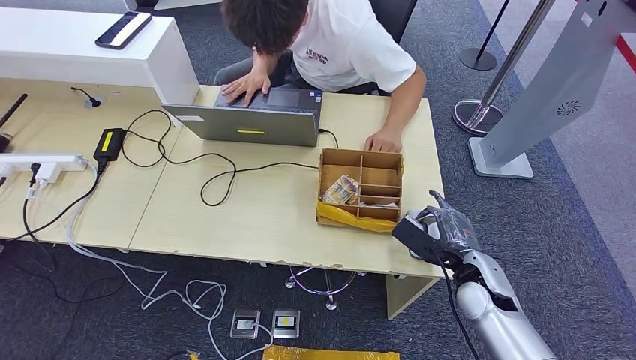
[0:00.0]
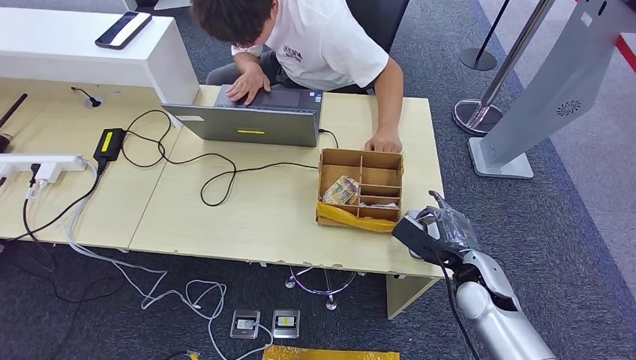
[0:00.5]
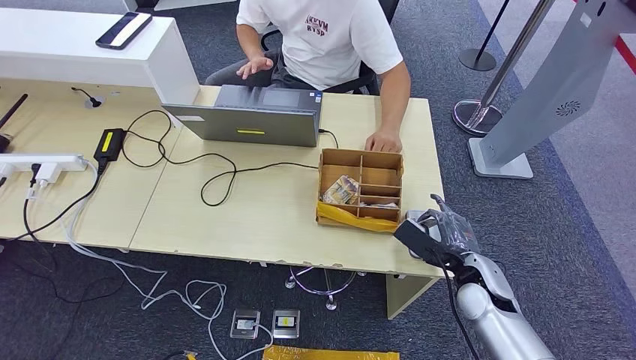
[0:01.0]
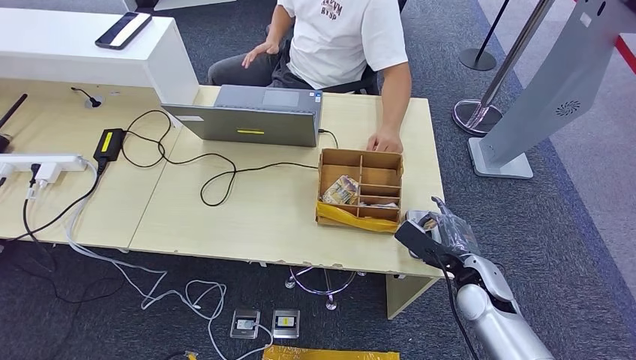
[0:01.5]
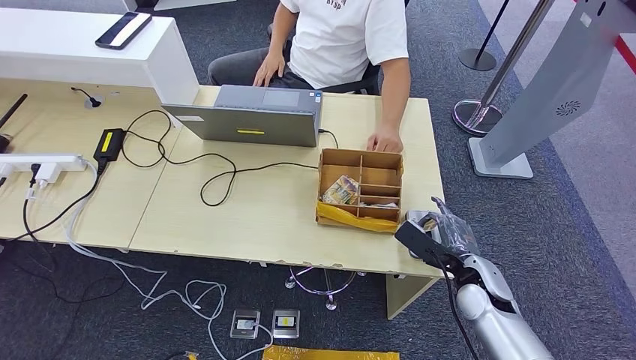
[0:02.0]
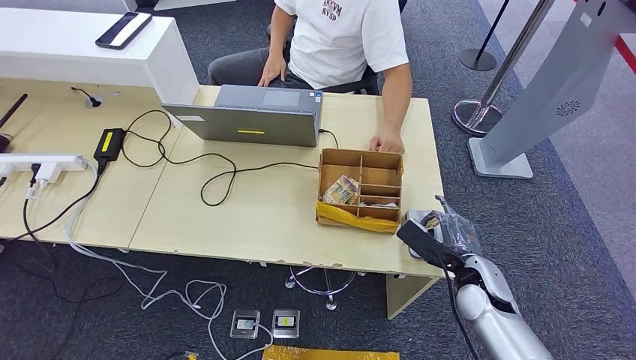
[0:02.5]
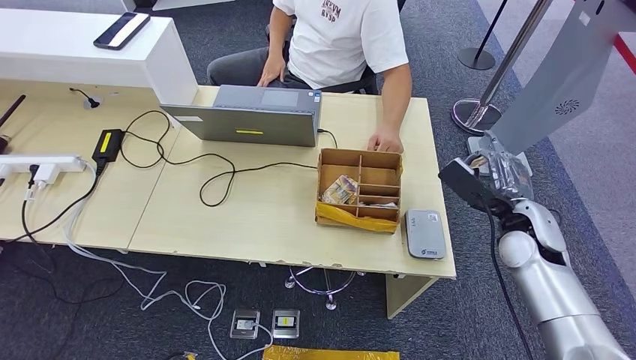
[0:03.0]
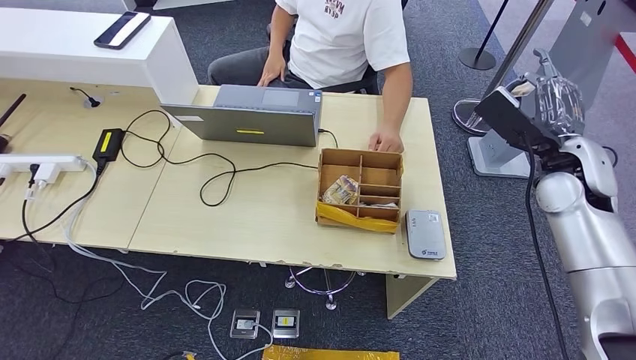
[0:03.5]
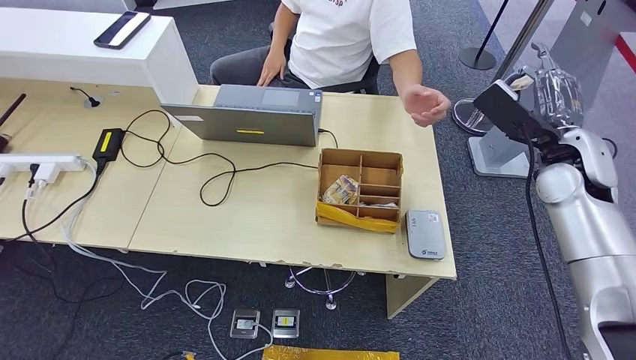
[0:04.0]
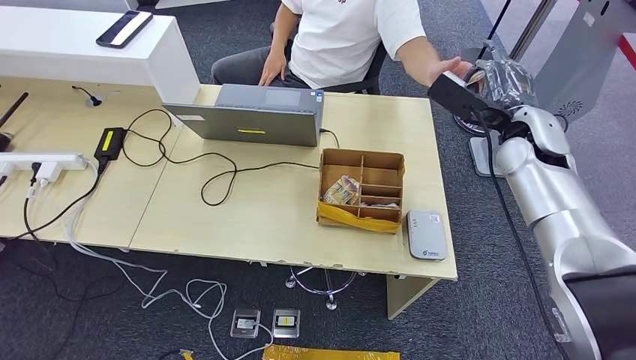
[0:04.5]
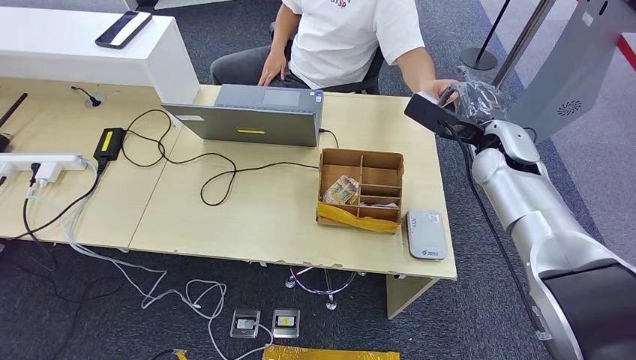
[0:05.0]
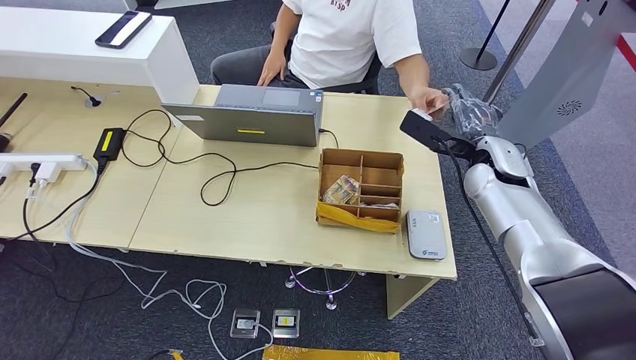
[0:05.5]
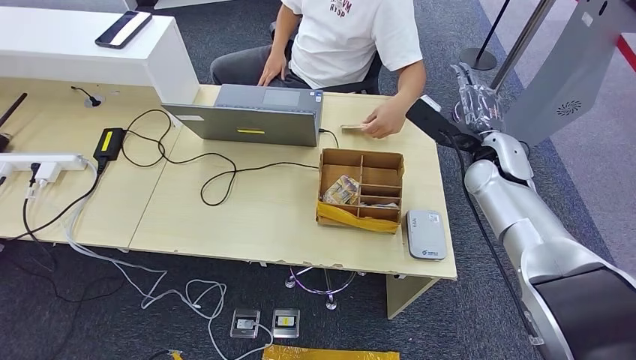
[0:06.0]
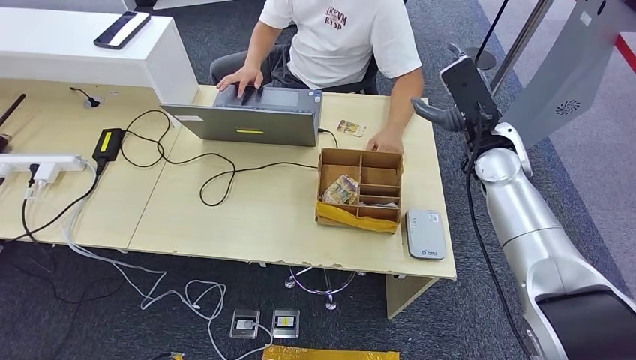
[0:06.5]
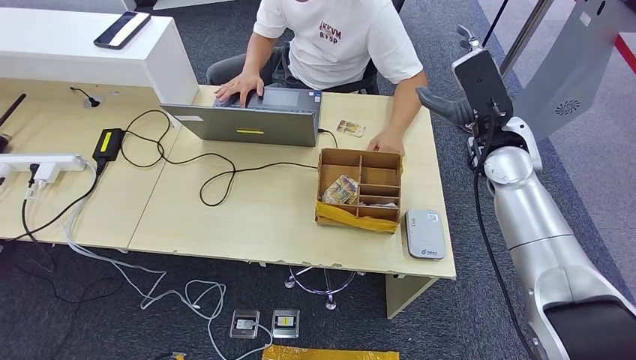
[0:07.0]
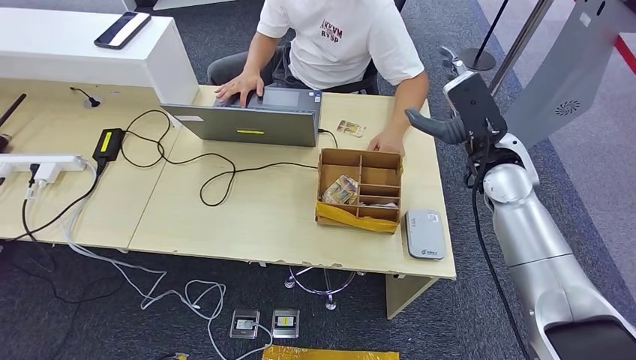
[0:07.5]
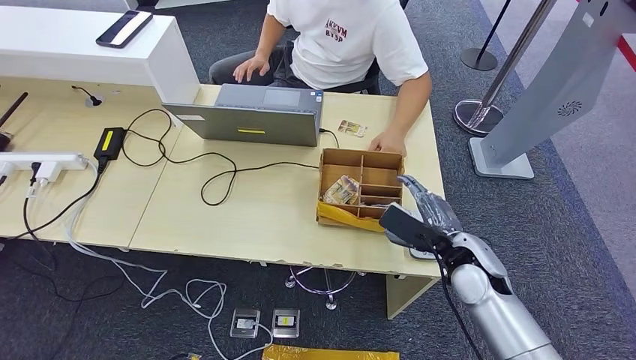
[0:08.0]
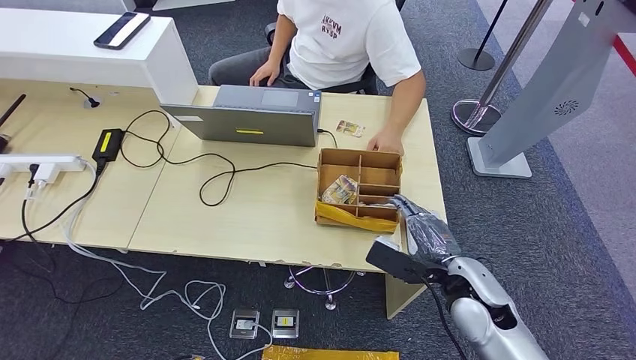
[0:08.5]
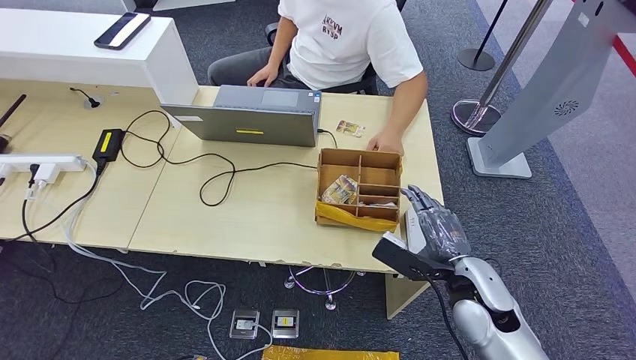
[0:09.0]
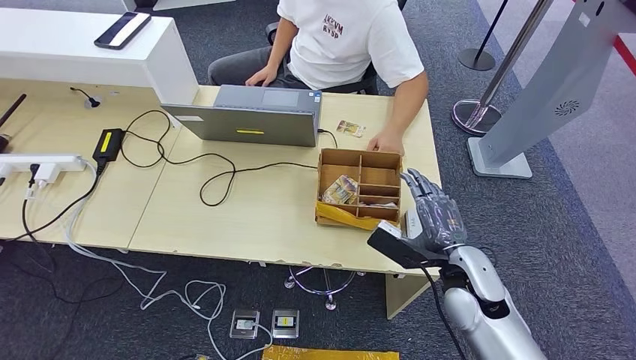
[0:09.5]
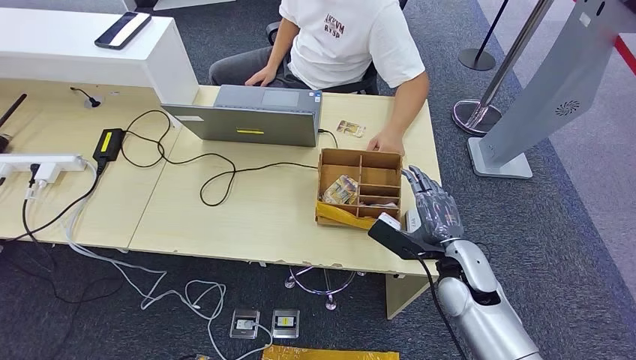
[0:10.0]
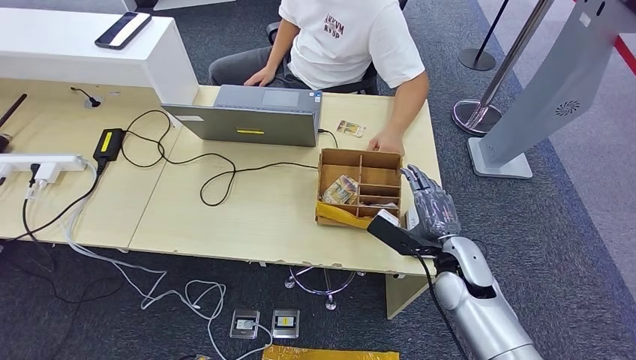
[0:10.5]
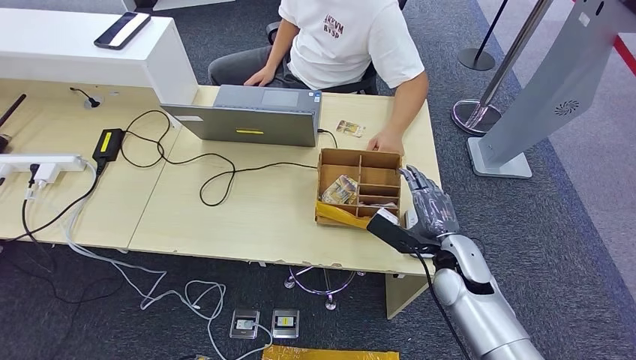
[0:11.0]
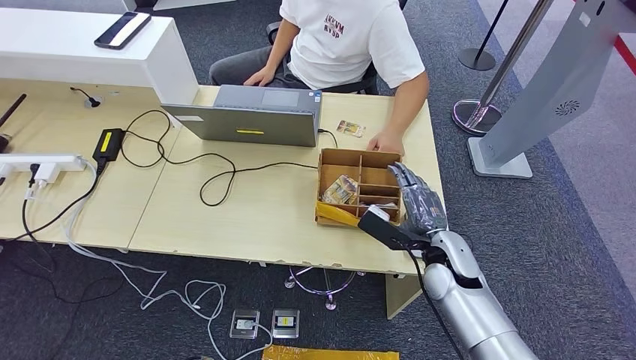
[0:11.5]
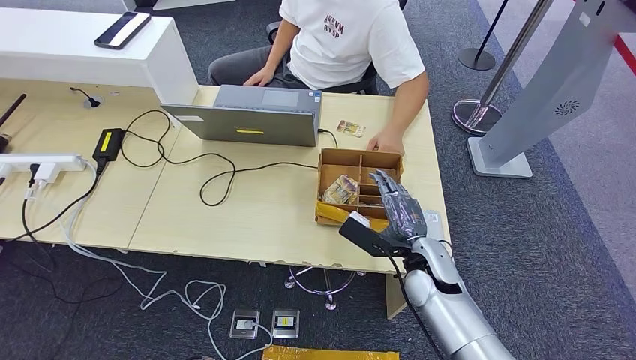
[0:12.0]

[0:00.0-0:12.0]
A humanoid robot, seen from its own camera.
Step, 0:00.0 to 0:02.0: Place the ID card on the card reader.
Step, 0:03.0 to 0:06.5: Hand the ID card to the person.
0:00.0 to 0:02.0: The hands move only a little.
0:02.0 to 0:04.0: The right hand shifts roughly 25 cm upward and forward.
0:04.0 to 0:06.0: The right hand goes about 10 cm to the left and downward.
0:06.0 to 0:08.0: The left hand moves to the right, about 5 cm. Meanwhile the right hand moves backward and downward, some 15 cm.
0:10.0 to 0:12.0: The right hand heads to the left, covering about 5 cm.

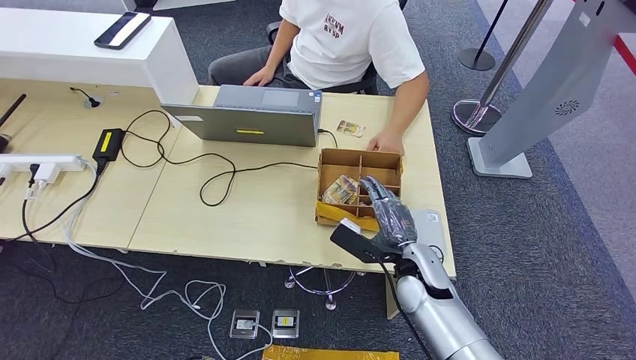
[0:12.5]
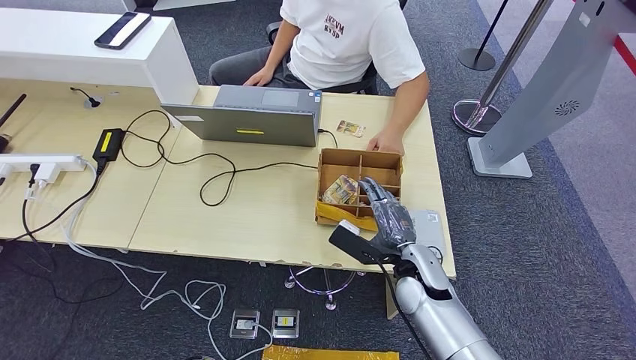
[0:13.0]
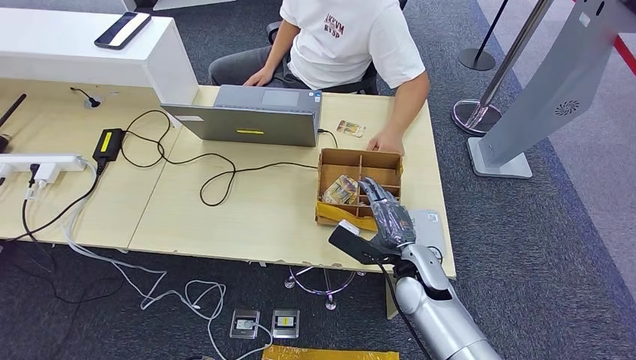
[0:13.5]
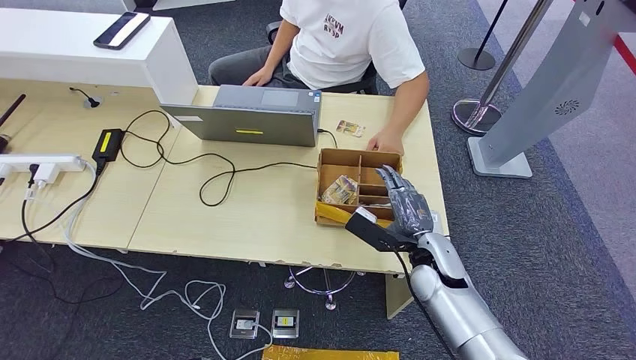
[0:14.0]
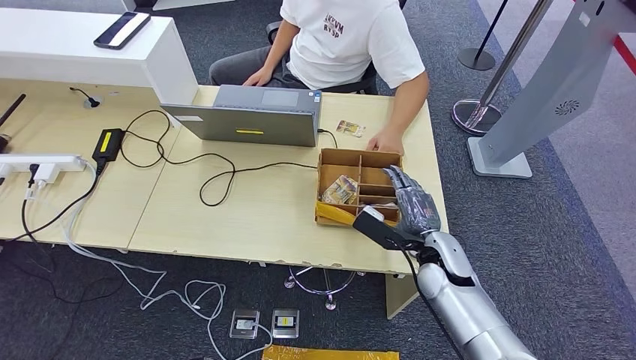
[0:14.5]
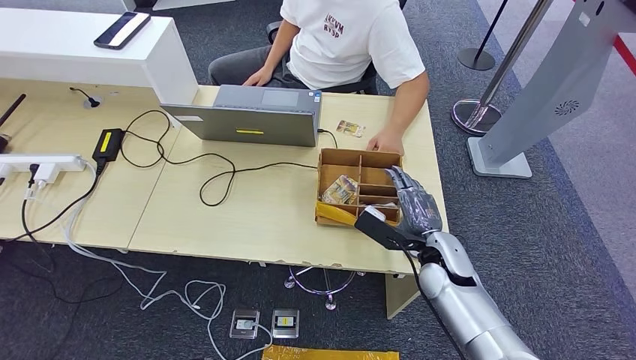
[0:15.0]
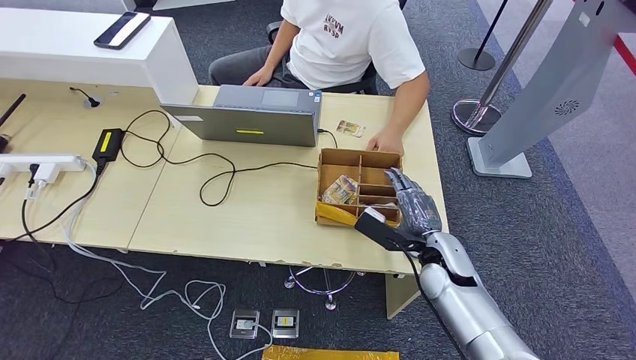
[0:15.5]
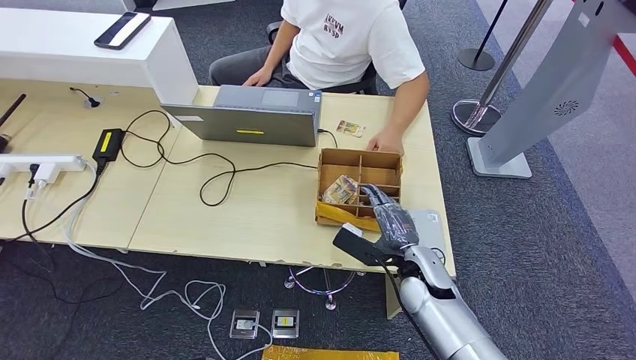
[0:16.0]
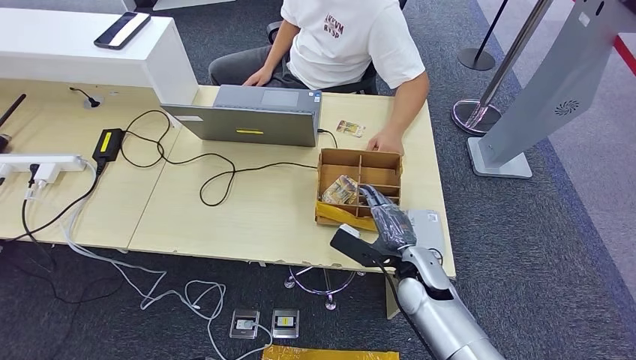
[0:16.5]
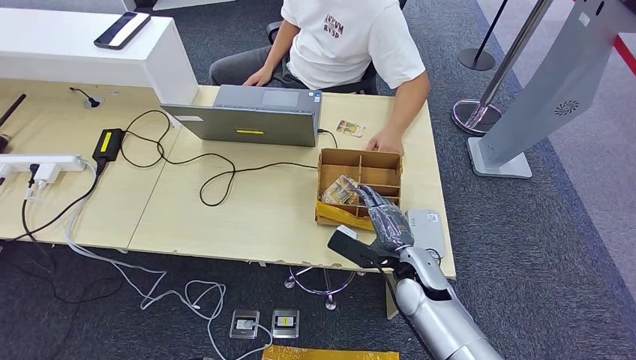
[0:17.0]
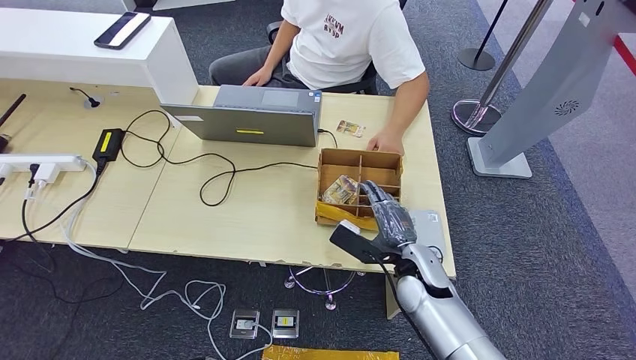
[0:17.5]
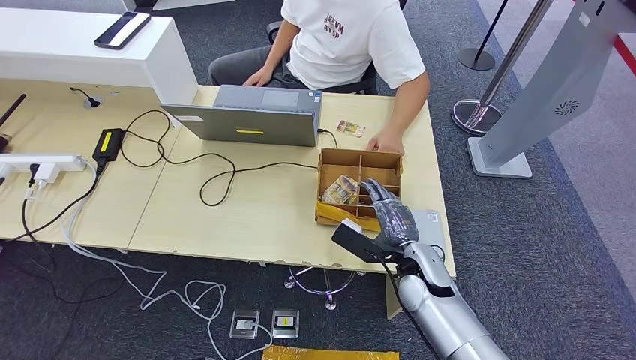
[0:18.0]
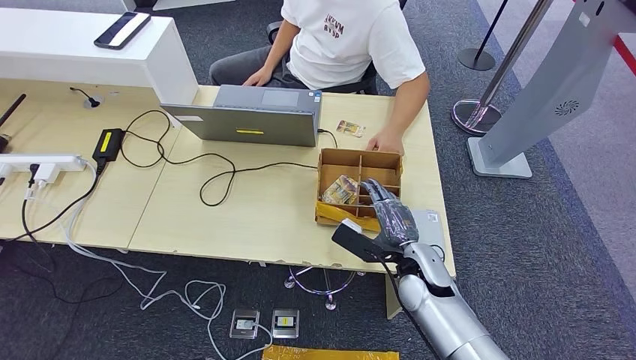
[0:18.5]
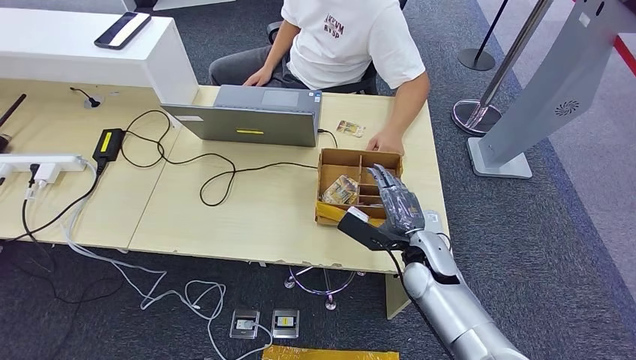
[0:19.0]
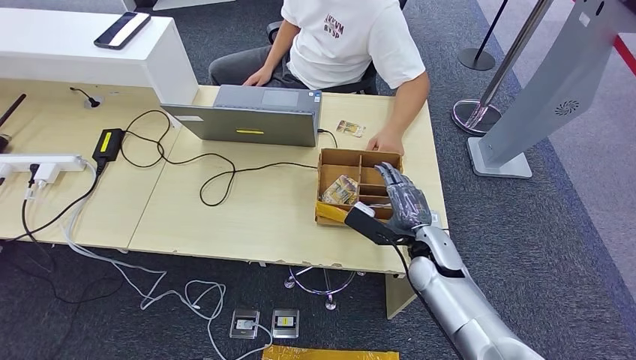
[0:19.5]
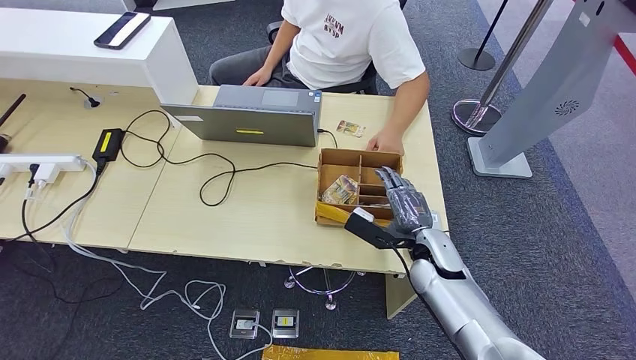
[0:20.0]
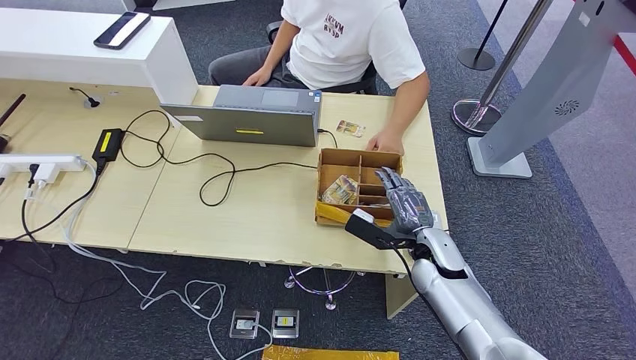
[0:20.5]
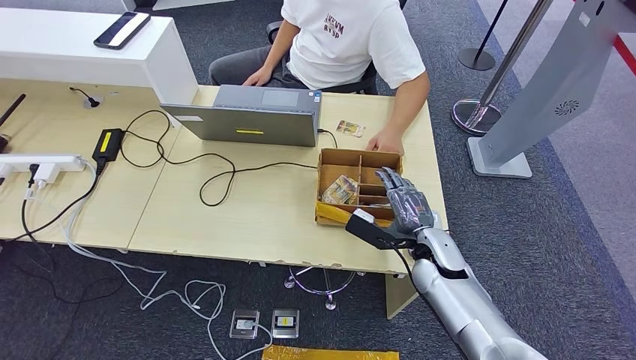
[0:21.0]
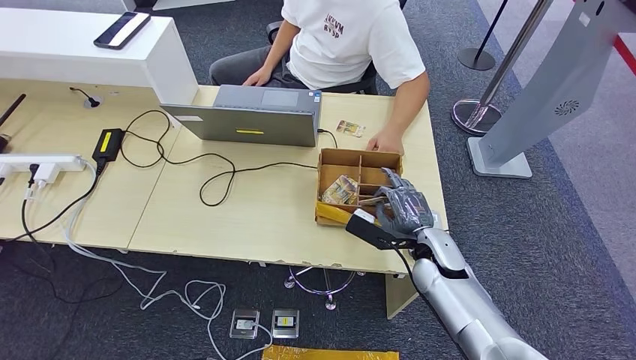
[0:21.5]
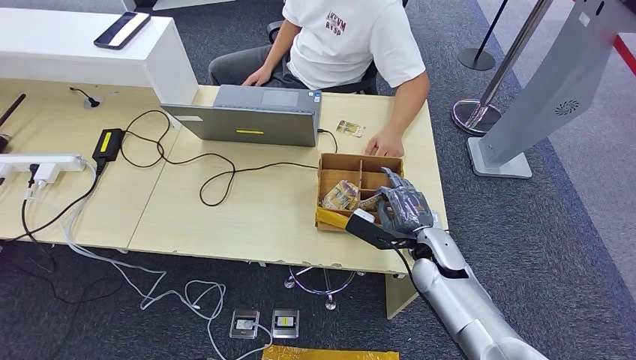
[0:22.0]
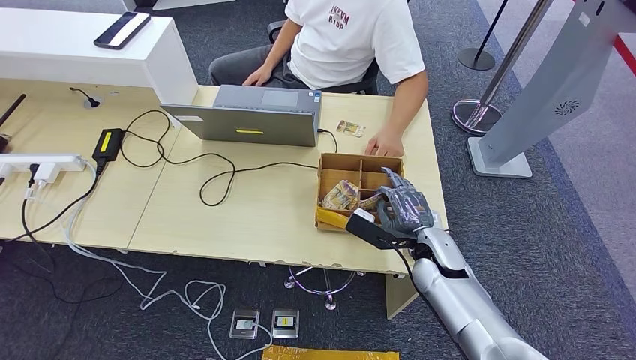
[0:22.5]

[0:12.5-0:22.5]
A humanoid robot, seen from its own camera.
0:12.5 to 0:16.5: The hands stay close to where they were, moving slightly.
0:16.5 to 0:18.5: Neither hand changes place.
0:18.5 to 0:20.5: The hands move only a little.
0:20.5 to 0:22.5: Both hands stay put.
